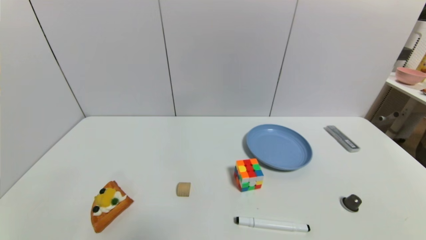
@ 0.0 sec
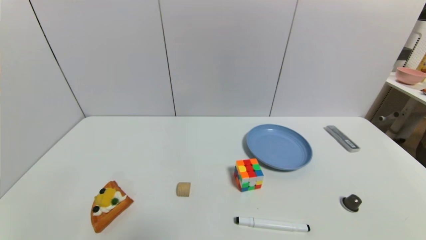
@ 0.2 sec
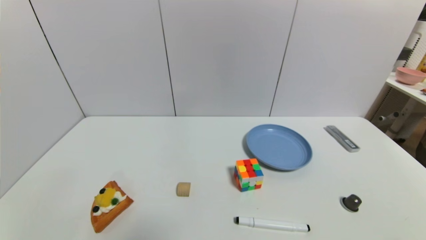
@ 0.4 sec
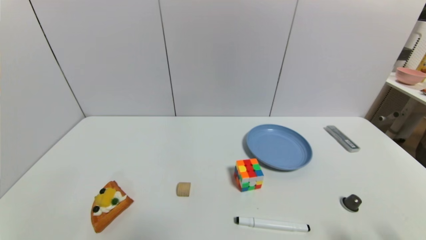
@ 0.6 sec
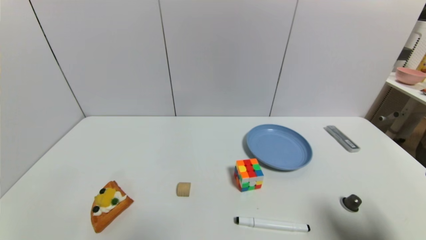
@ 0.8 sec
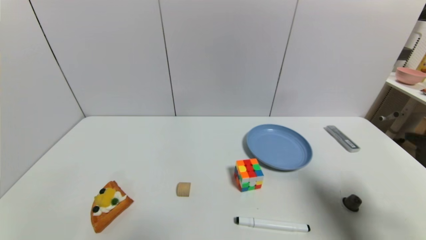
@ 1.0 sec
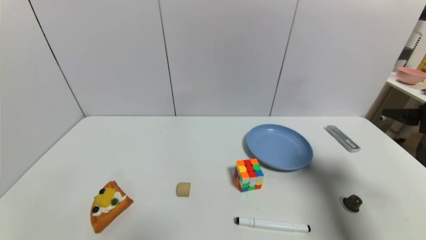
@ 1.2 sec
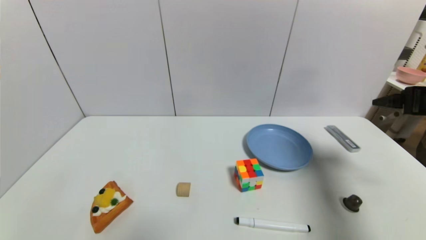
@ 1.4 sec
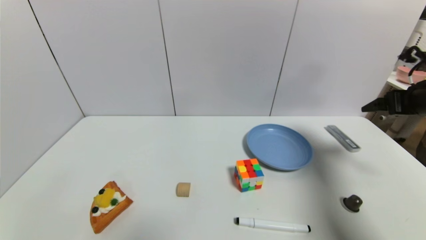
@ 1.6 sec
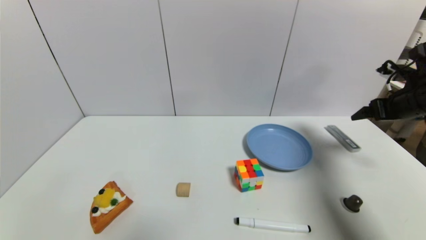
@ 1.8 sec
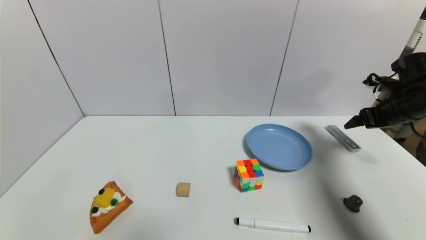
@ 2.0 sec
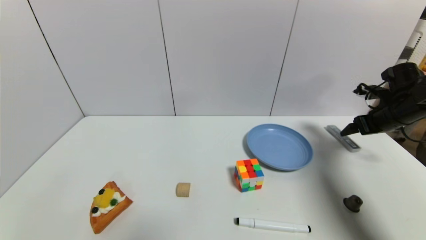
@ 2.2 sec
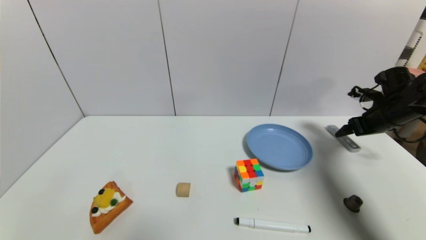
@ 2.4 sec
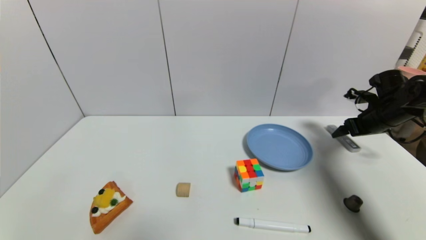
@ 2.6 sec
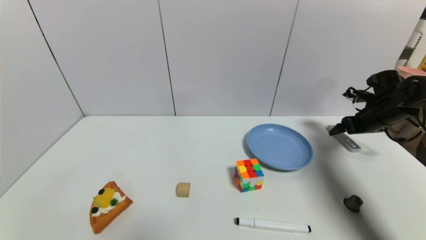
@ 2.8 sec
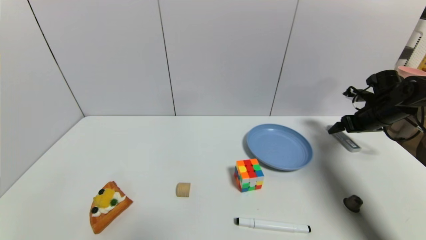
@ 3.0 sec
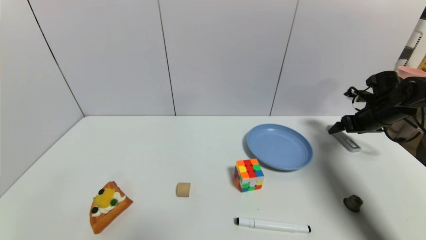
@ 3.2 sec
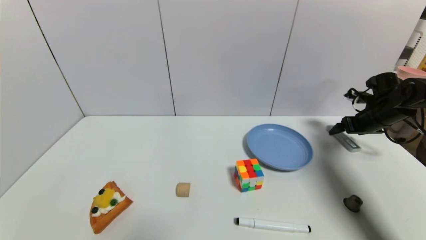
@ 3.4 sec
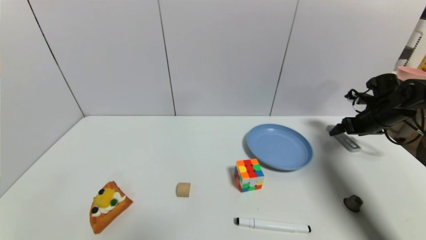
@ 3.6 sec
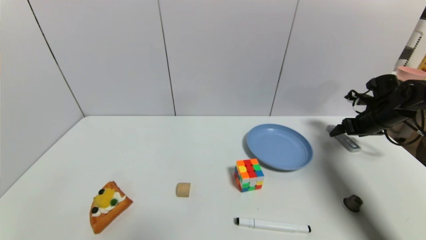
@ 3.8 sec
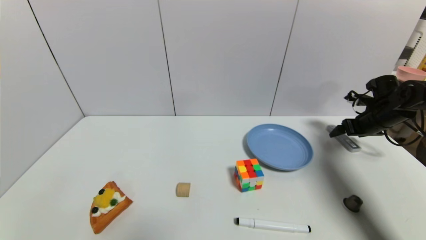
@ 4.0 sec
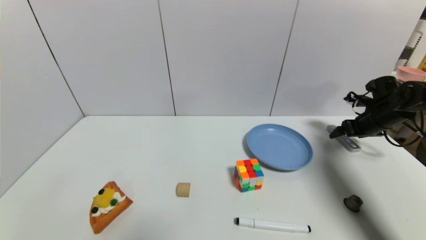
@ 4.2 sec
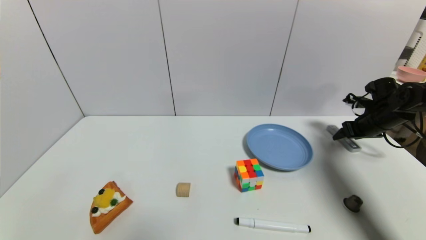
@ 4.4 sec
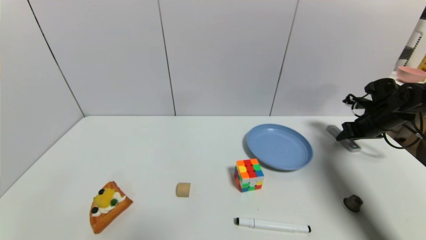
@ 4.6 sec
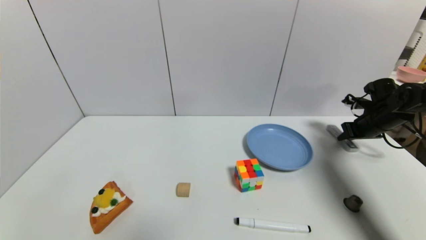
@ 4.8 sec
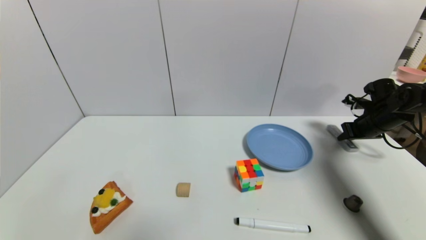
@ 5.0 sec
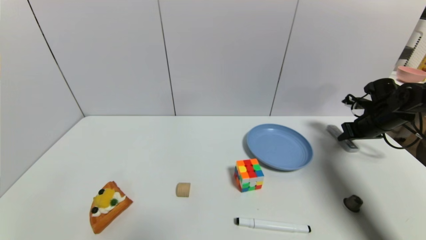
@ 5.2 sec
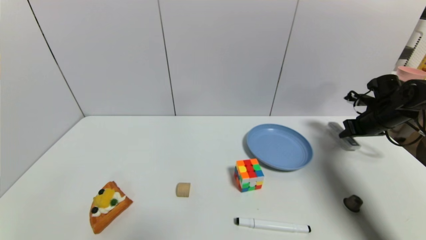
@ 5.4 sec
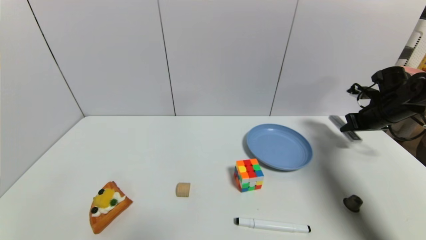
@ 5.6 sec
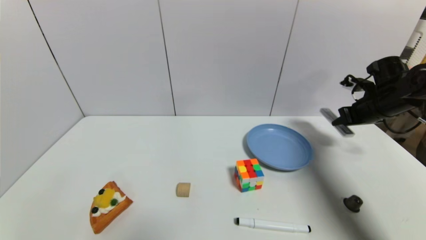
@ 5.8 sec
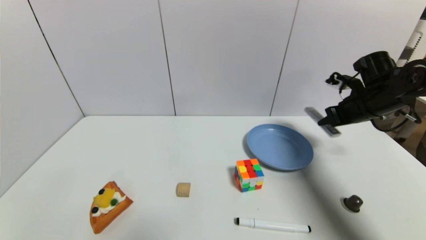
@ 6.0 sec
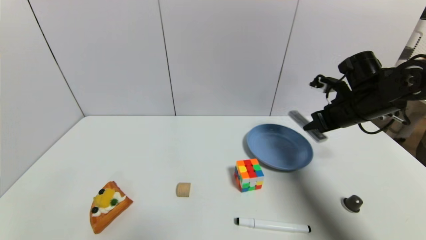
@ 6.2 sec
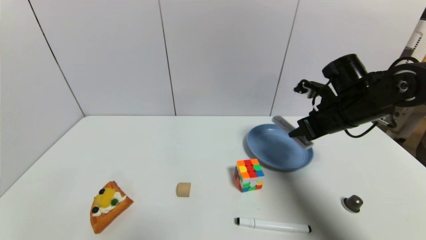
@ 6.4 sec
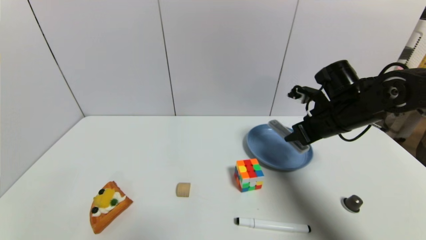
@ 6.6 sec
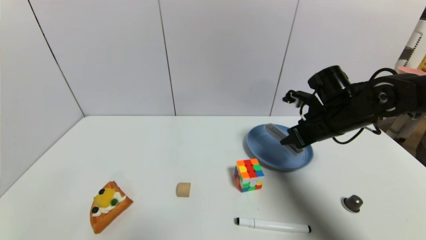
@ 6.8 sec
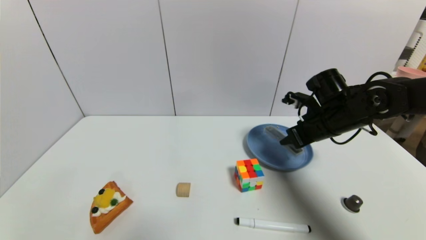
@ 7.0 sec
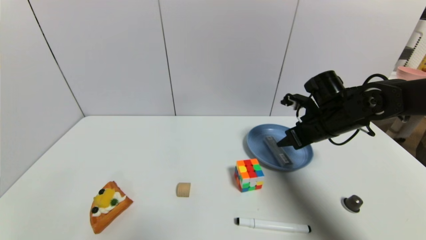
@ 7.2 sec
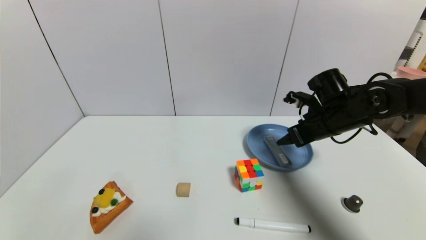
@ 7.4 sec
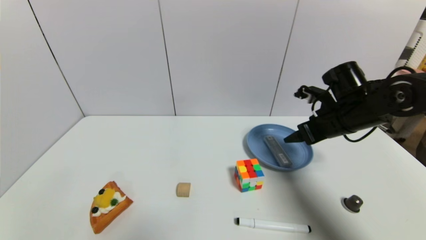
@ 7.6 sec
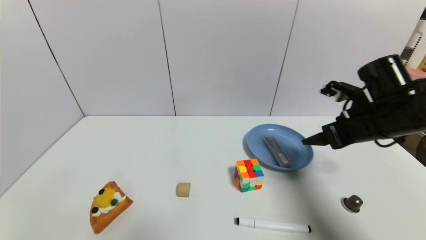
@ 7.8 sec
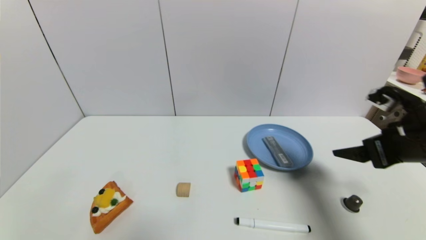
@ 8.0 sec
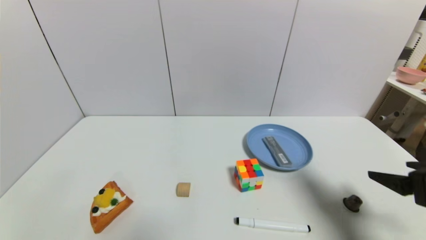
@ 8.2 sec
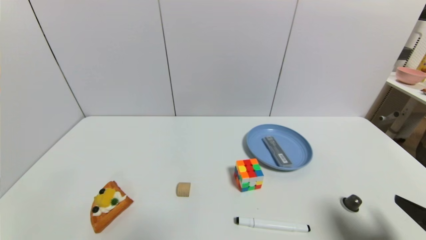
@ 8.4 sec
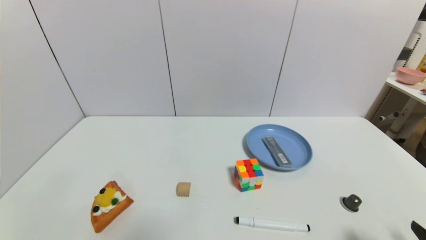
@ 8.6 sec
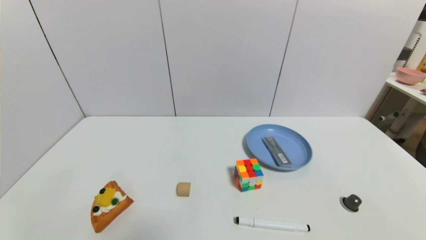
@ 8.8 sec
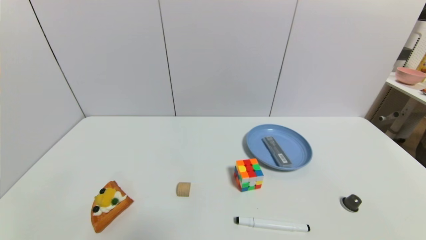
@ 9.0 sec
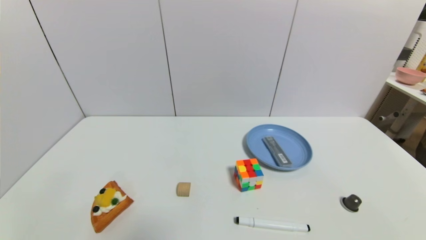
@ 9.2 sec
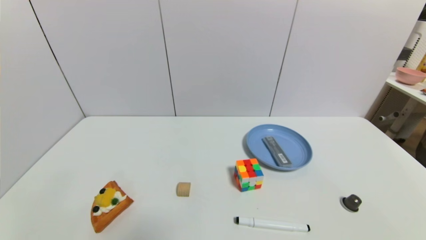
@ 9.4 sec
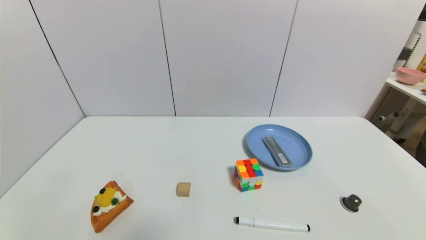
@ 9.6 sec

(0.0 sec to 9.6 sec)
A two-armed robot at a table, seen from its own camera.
Task of the whole recording: use a gripper to pick the target object and place on the blue plate.
Step, 0.0 sec - 5.0 sec: Grasp the compasses with the right gripper.
Step, 5.2 sec - 8.0 sec: Place the compasses on the blue plate with the right gripper.
0.0 sec - 1.6 sec: The right gripper goes some 35 cm forward and upward.
1.6 sec - 3.2 sec: The right gripper heads forward and downward, covering about 15 cm.
3.2 sec - 4.8 sec: The right gripper closes.
4.8 sec - 6.4 sec: The right gripper goes about 20 cm to the left and backward.
6.4 sec - 8.0 sec: The right gripper goes some 15 cm backward and to the right, and opens.
8.0 sec - 9.6 sec: The right gripper shifts roughly 25 cm backward and downward.
